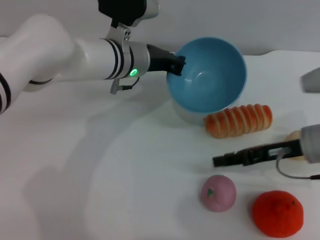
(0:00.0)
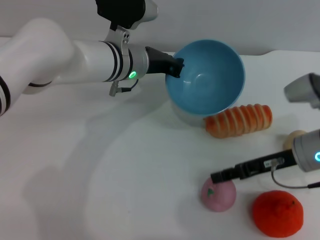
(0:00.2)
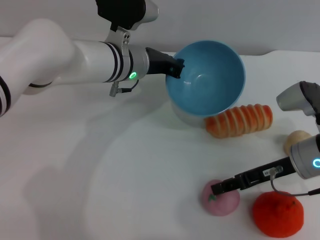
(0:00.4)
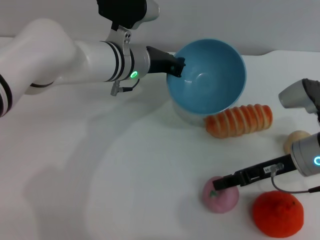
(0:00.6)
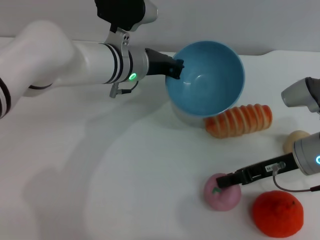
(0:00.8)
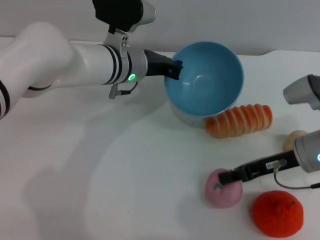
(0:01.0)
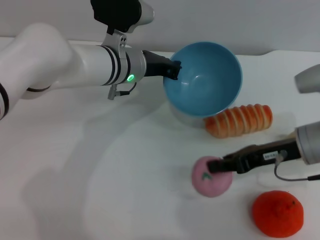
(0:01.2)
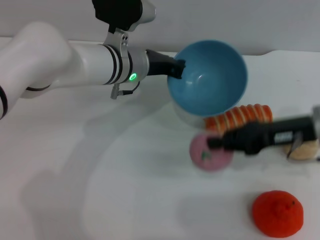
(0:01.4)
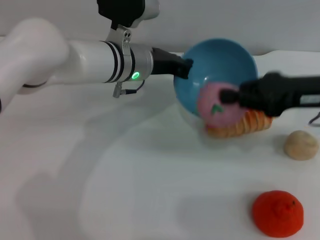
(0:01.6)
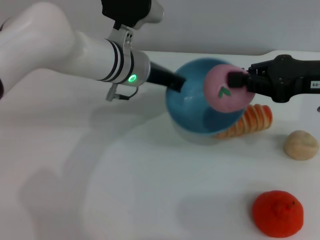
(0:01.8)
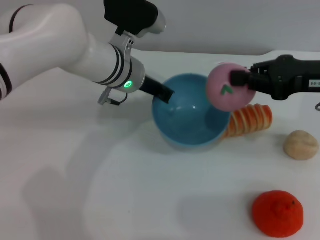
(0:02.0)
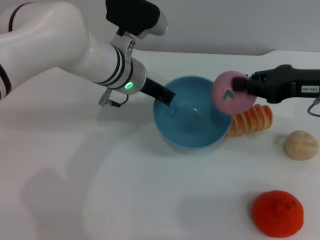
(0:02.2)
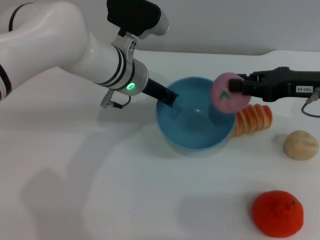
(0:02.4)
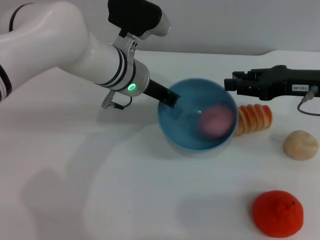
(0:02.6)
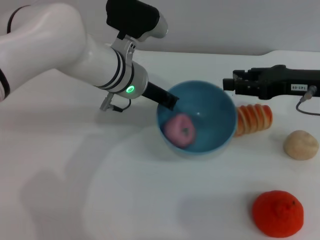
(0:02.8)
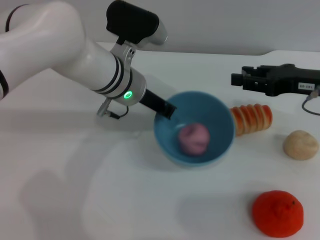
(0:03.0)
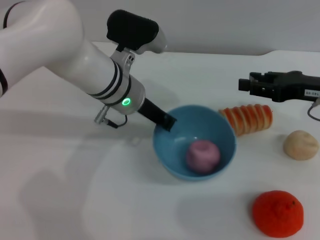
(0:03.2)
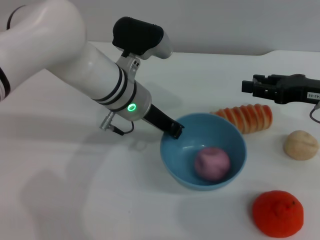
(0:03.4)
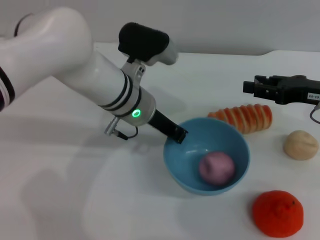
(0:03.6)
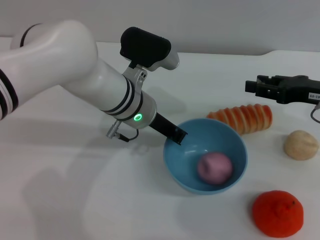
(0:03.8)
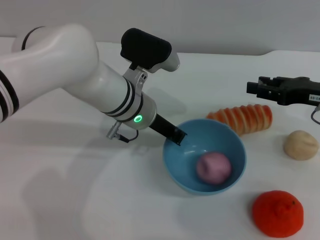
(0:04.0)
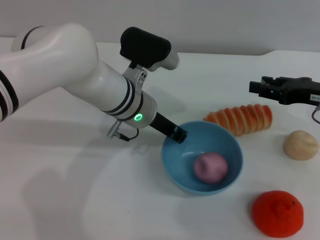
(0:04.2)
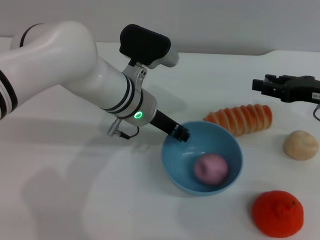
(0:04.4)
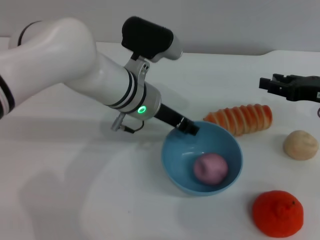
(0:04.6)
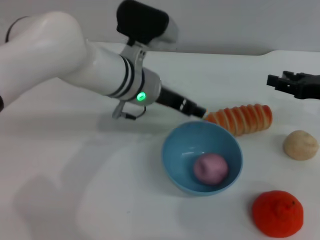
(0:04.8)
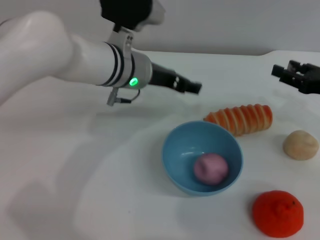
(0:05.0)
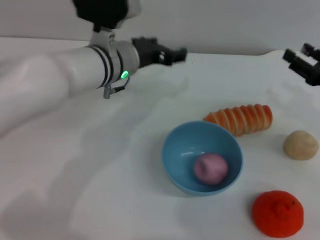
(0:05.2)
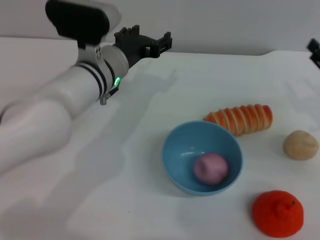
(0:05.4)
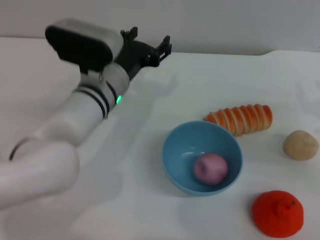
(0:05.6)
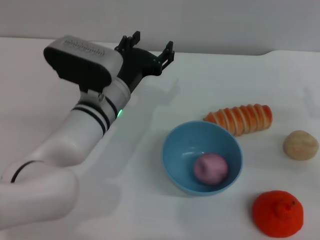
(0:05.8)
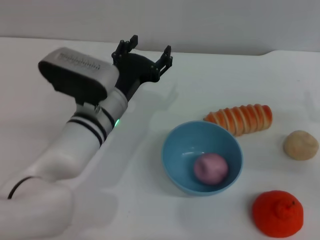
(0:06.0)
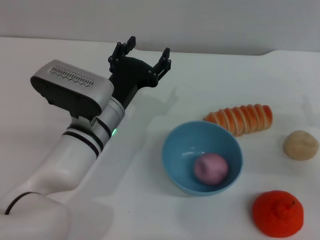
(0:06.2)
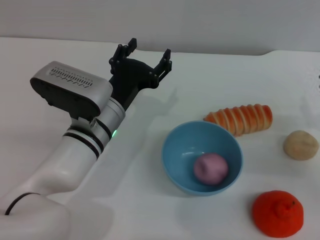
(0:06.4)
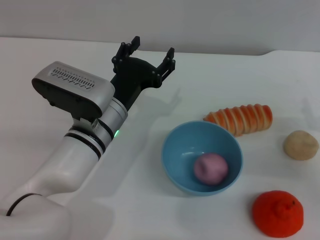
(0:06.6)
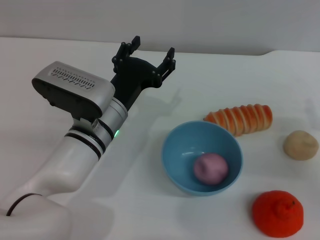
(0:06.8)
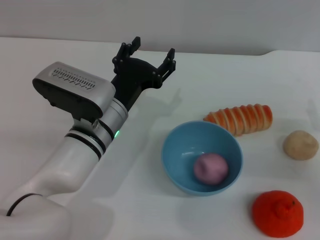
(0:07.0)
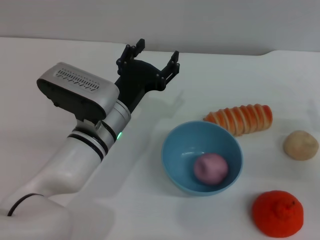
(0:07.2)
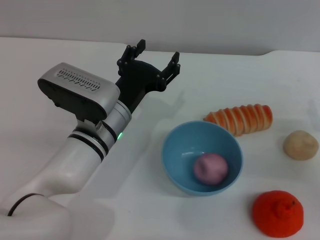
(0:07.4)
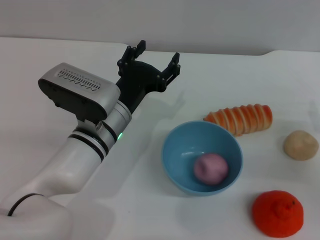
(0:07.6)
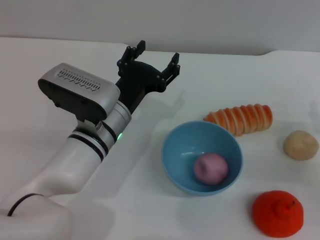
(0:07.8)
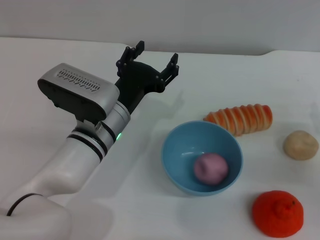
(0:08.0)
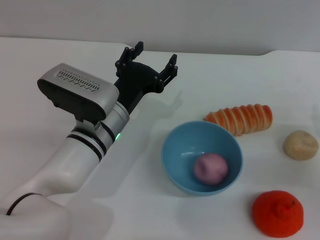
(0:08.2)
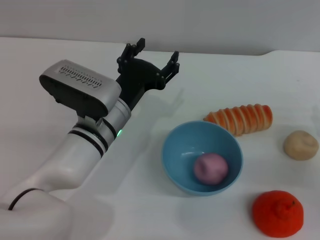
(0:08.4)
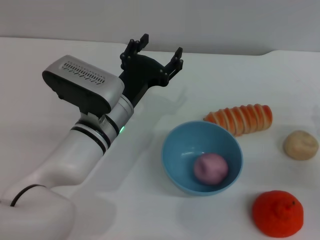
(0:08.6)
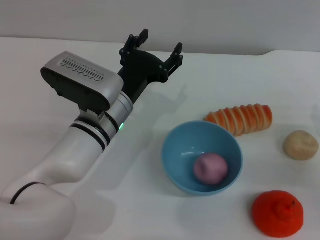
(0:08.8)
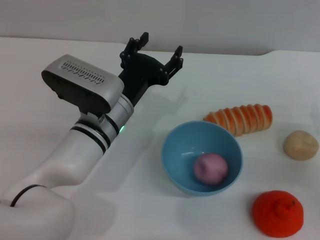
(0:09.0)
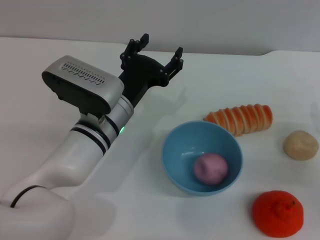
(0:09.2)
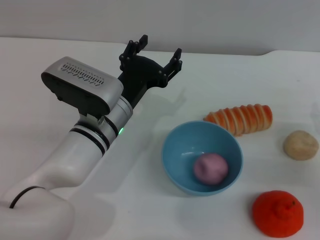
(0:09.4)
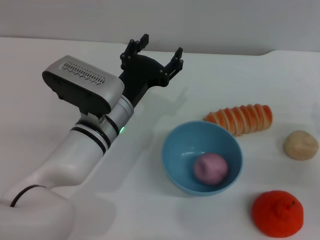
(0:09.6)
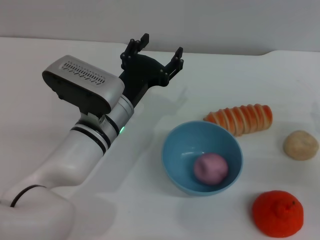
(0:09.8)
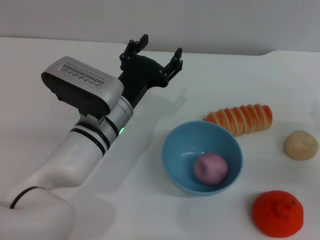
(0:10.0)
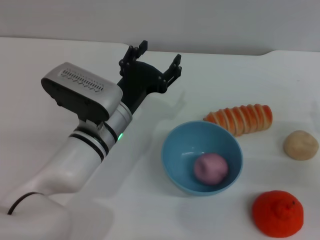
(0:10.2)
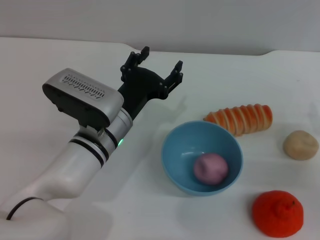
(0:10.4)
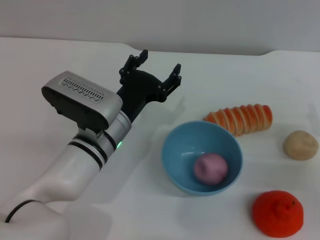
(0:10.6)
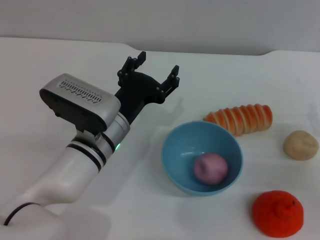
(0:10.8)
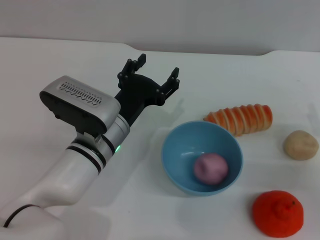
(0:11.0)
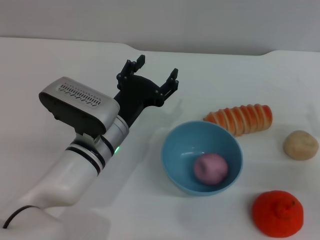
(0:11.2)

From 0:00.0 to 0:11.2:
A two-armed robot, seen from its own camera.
Task of the whole recording: put the peach into the blue bowl and pour it out repeatedly.
Step, from 0:00.0 to 0:01.4: Pick up the peach with the right gripper.
Step, from 0:01.6 to 0:02.8: Place the peach into the bowl.
Step, from 0:03.0 to 0:04.8: Place the bowl on the table.
From 0:00.0 to 0:01.6: The right gripper is displaced upward by approximately 10 cm, and closes up.
From 0:01.6 to 0:03.2: The right gripper changes place by roughly 5 cm, and opens up.
From 0:03.2 to 0:04.8: The left gripper opens.
From 0:04.8 to 0:06.4: The left gripper is displaced backward and downward by some 10 cm, and opens. The right gripper moves downward and backward, some 10 cm.
From 0:06.4 to 0:11.2: The grippers stay close to where they were, moving slightly.
